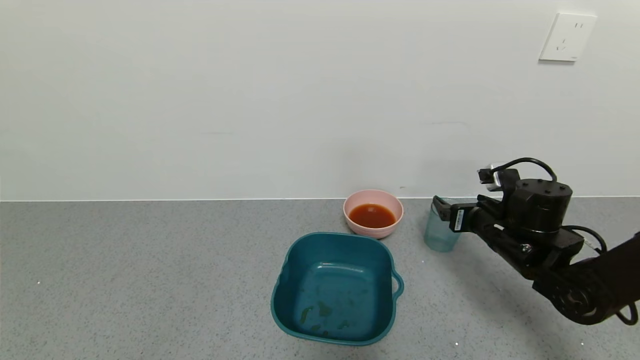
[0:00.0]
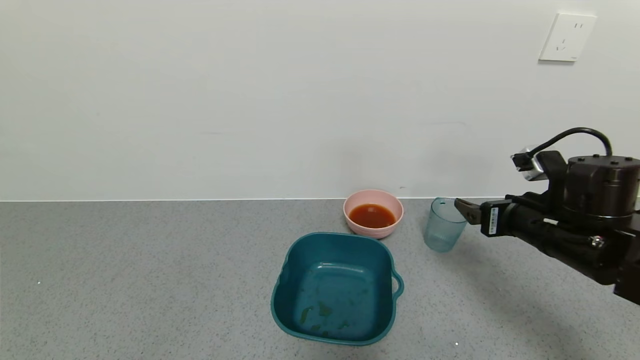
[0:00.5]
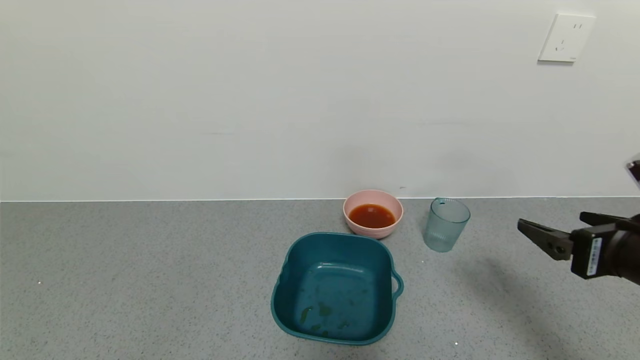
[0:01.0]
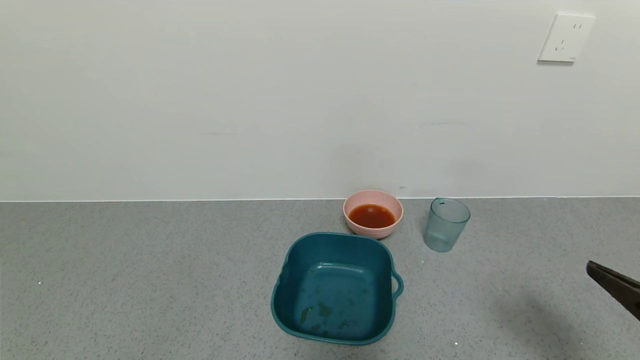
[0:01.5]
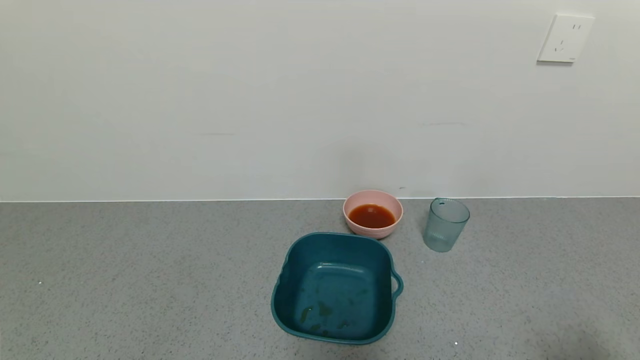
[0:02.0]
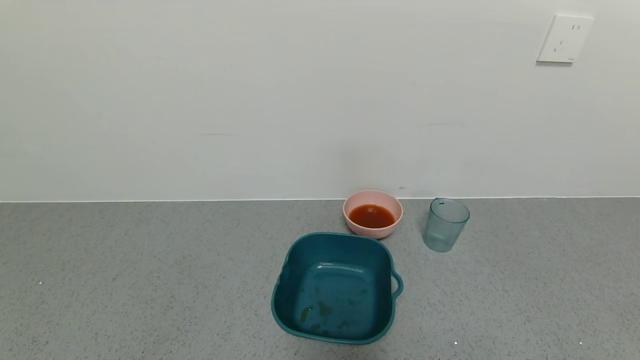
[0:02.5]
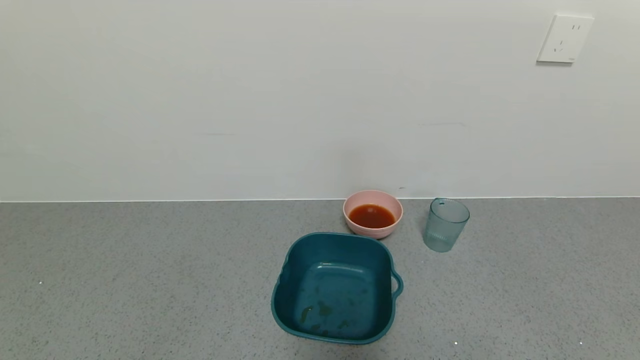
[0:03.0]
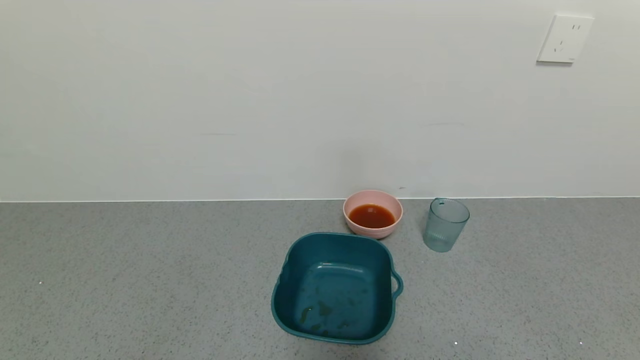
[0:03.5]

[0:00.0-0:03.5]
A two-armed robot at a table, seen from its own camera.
Task of the whole recording: use a gripper to pick up the cup and pour the liquid into a bowl or tray.
0:00.0 to 0:02.0: The right gripper heads backward, covering some 30 cm.

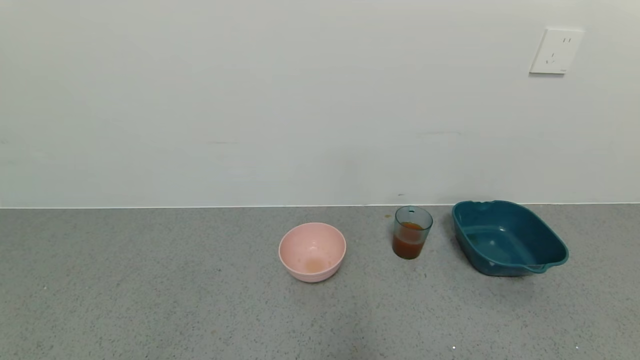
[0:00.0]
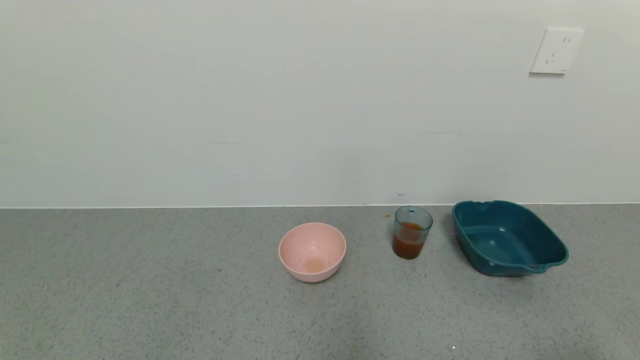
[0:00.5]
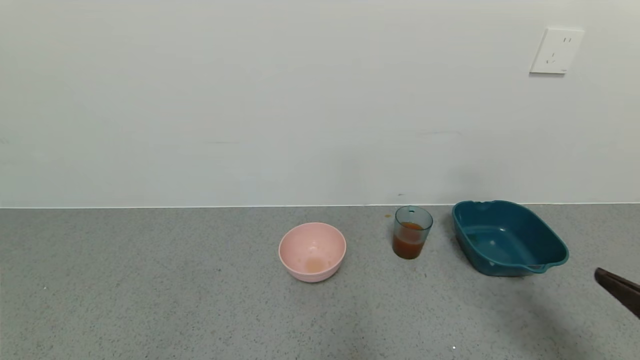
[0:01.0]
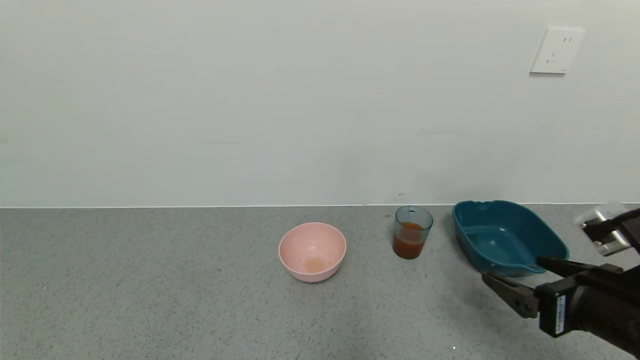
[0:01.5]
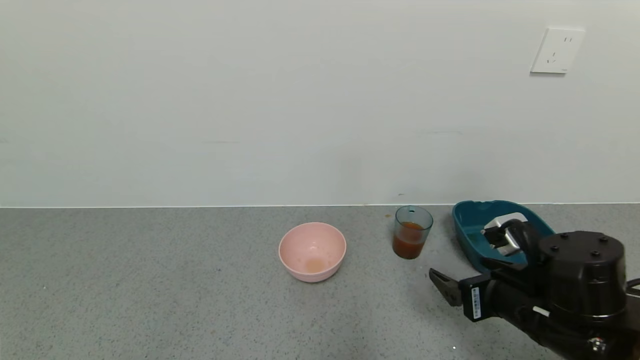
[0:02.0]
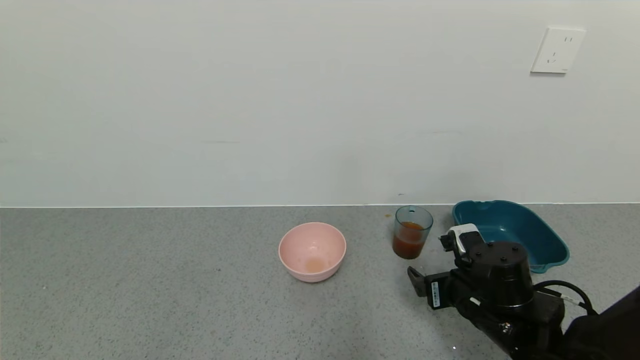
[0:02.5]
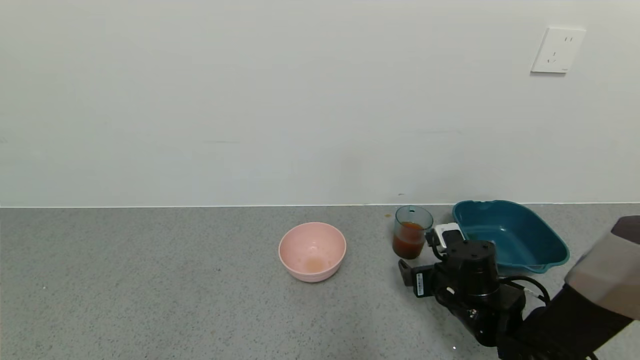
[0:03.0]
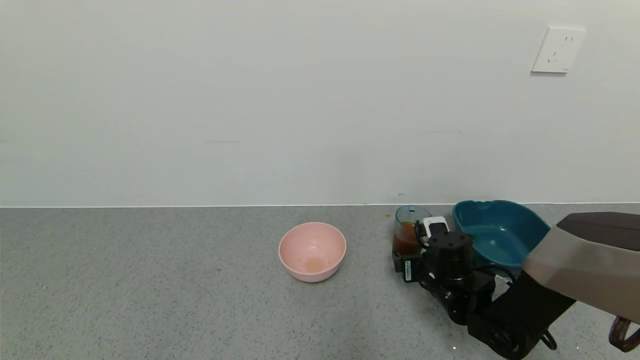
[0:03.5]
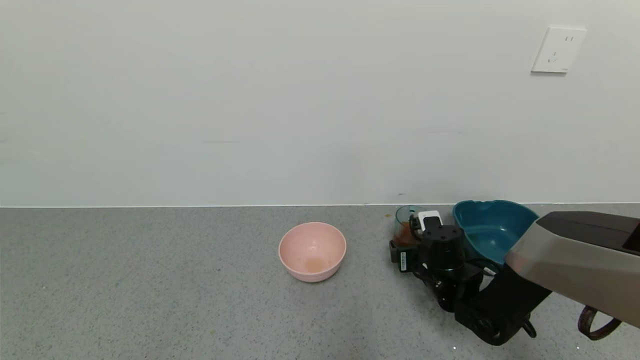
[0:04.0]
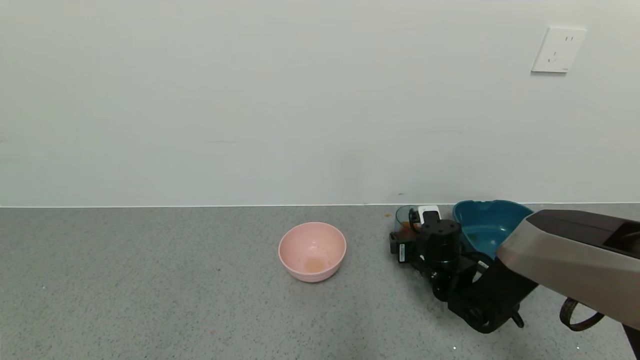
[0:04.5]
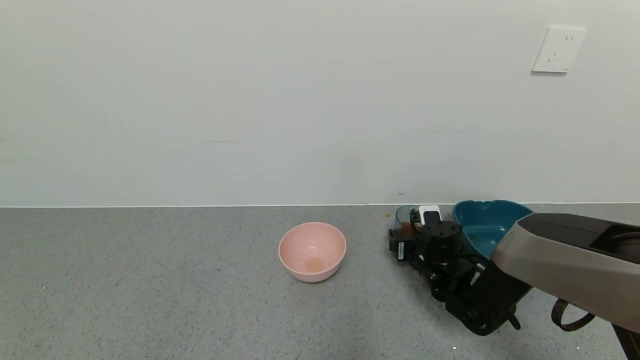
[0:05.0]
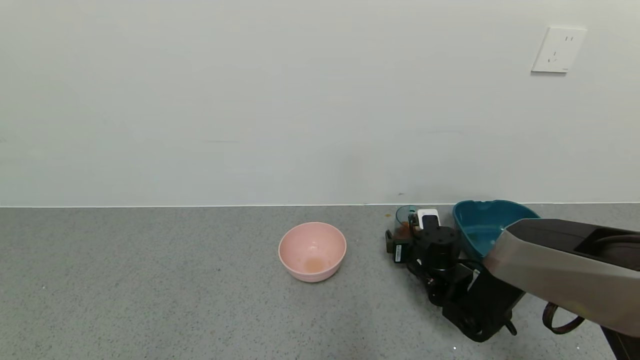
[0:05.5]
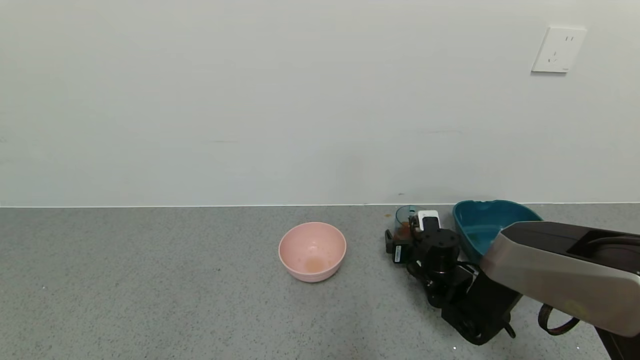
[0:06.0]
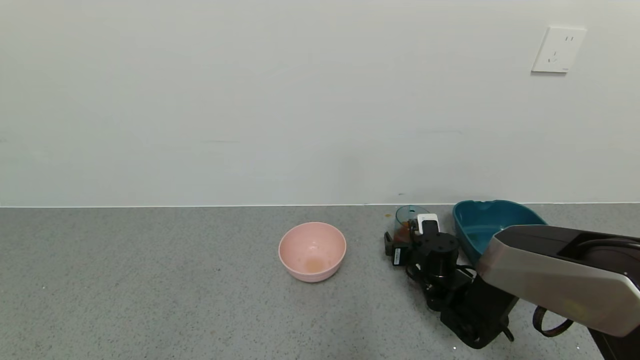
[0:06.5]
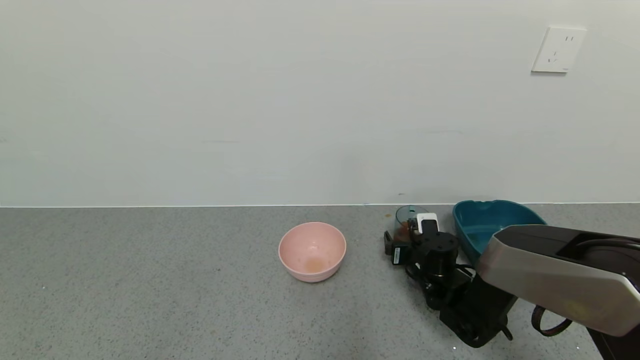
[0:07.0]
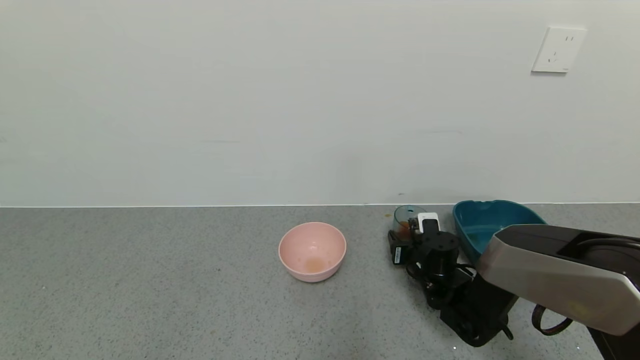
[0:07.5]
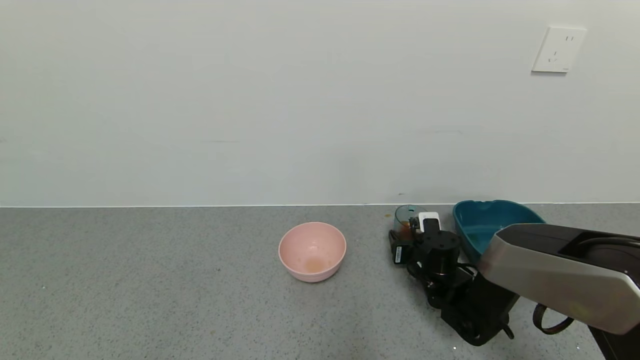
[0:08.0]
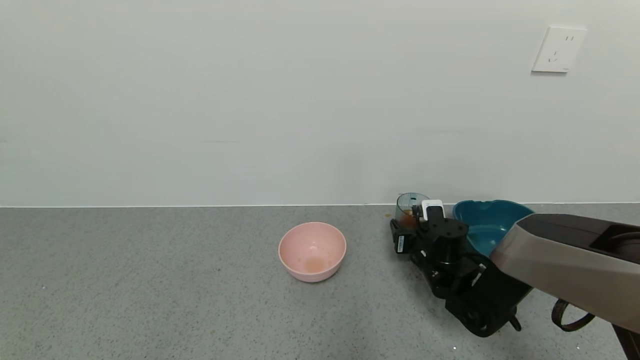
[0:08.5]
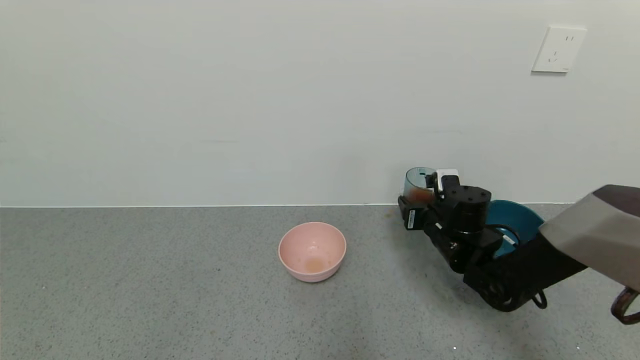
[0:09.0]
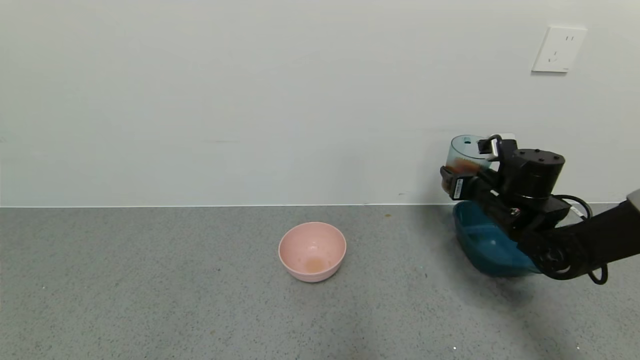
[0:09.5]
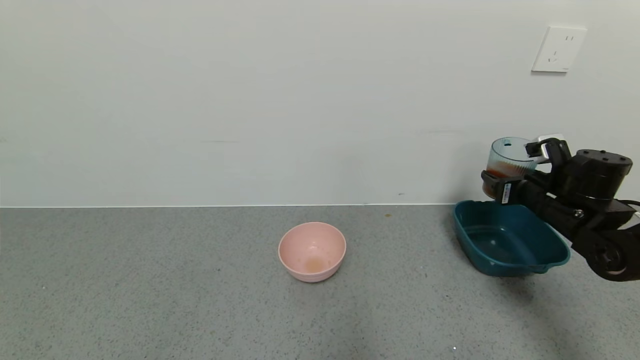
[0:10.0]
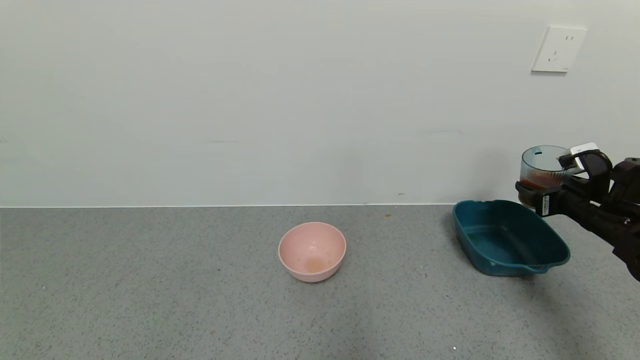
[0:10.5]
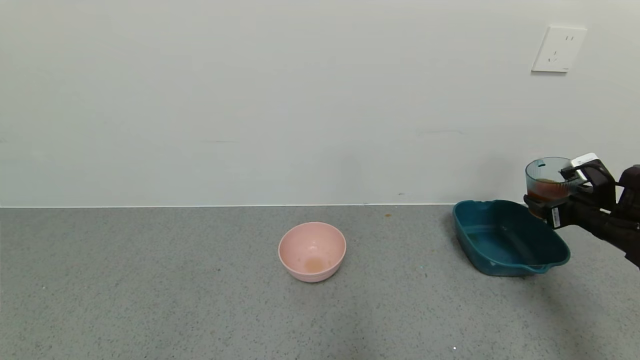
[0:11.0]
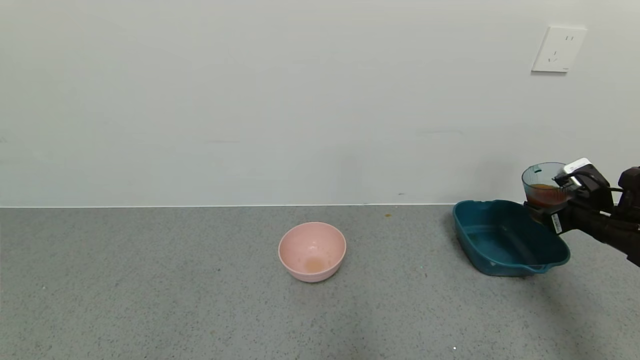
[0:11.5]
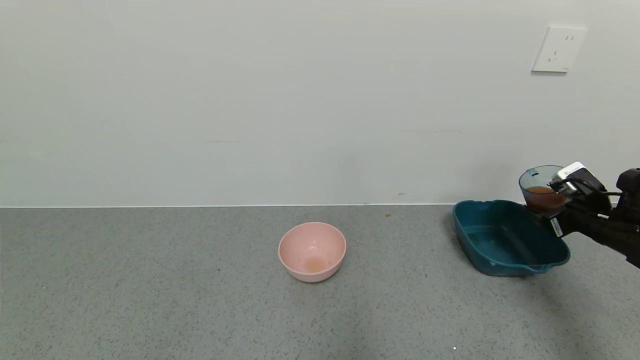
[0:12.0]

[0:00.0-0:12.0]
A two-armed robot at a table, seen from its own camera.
Task of the whole recording: use a gripper to pick up the cup and pour the liquid into a bowl or tray.
Step, 0:00.0 to 0:08.0: Grasp the glass of black tea with the right gripper.
0:00.0 to 0:02.0: The right gripper shifts roughly 25 cm forward and to the left.
0:02.0 to 0:04.0: The right gripper moves forward and downward, about 20 cm.
0:04.0 to 0:06.0: The grippers move only a little.
0:06.0 to 0:08.0: The right gripper closes up.
0:08.0 to 0:10.0: The right gripper shifts some 25 cm to the right and upward.
0:10.0 to 0:12.0: The right gripper goes roughly 10 cm to the right.

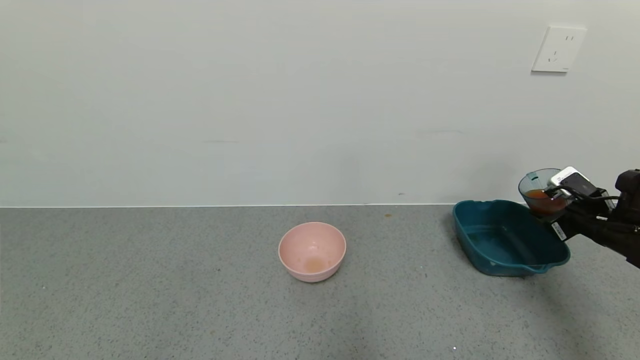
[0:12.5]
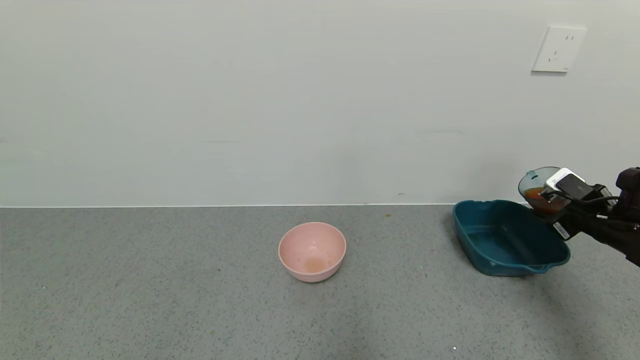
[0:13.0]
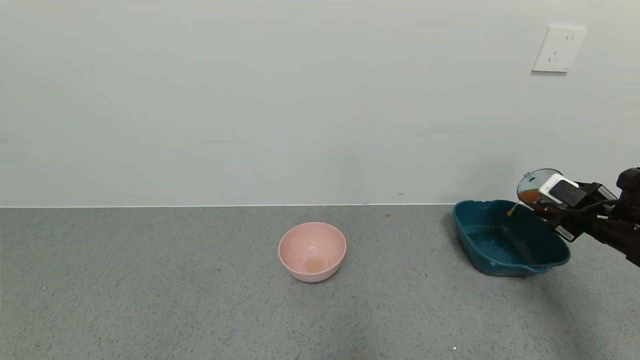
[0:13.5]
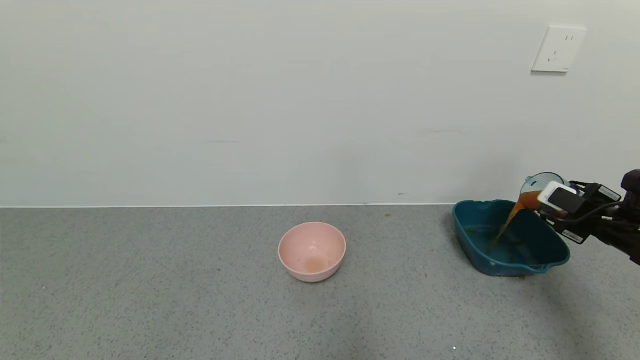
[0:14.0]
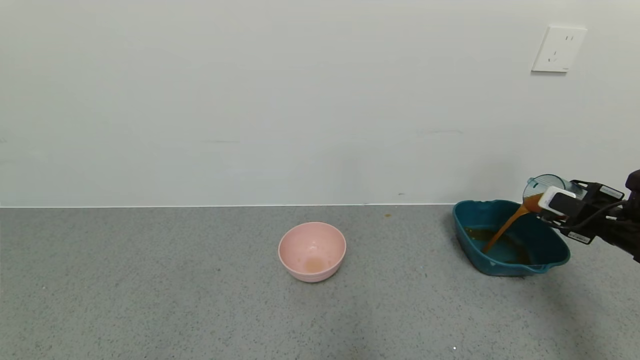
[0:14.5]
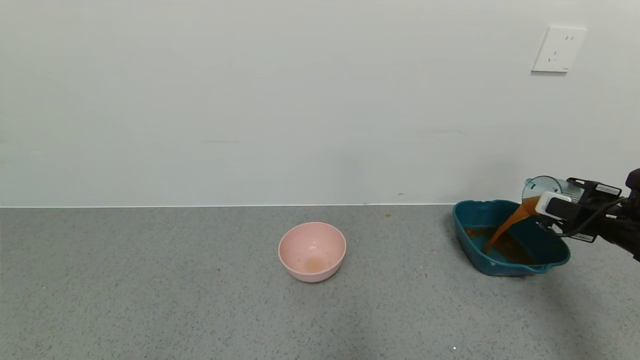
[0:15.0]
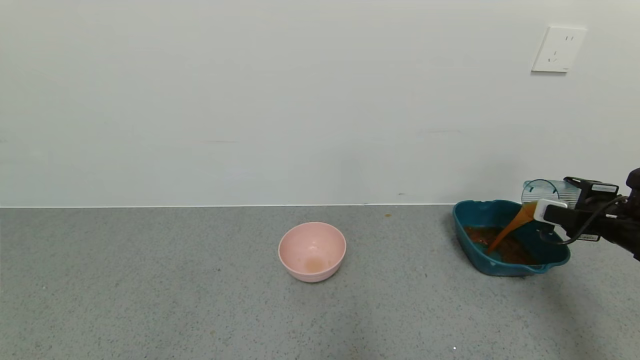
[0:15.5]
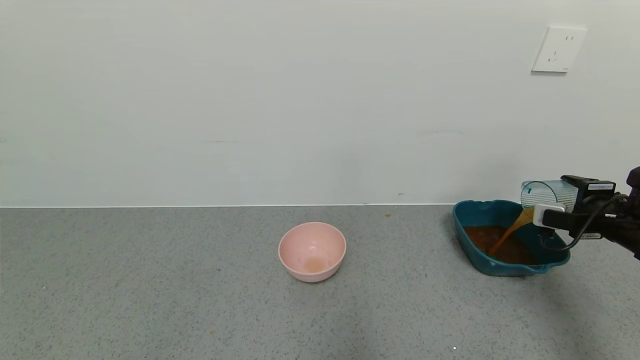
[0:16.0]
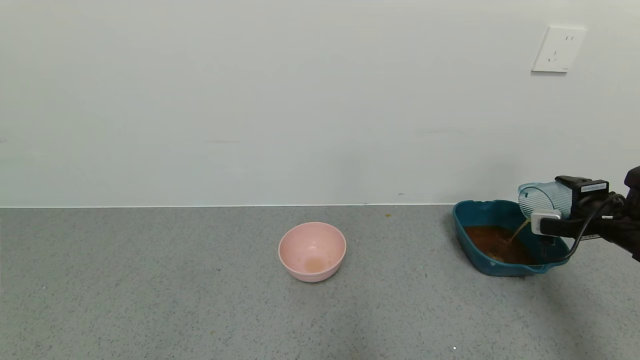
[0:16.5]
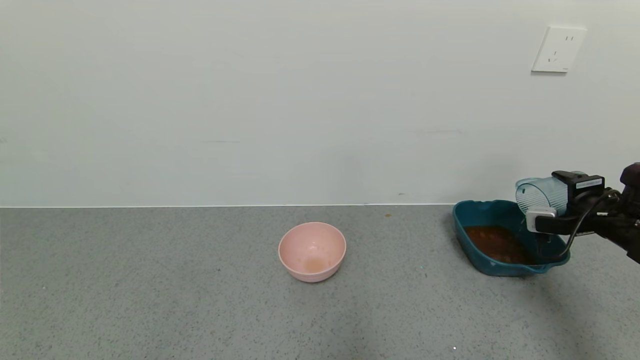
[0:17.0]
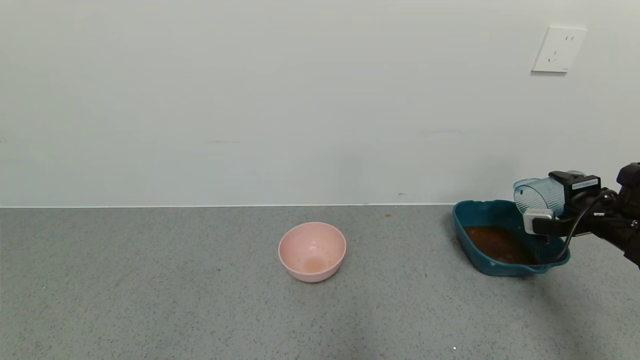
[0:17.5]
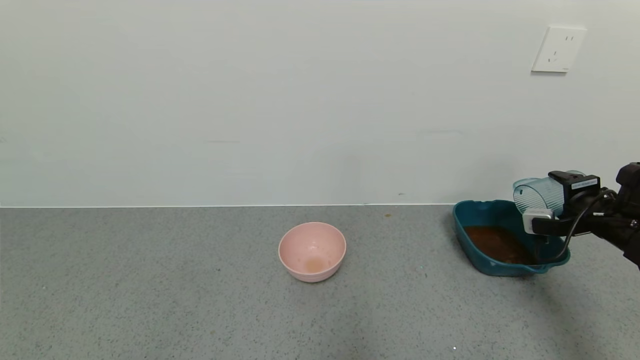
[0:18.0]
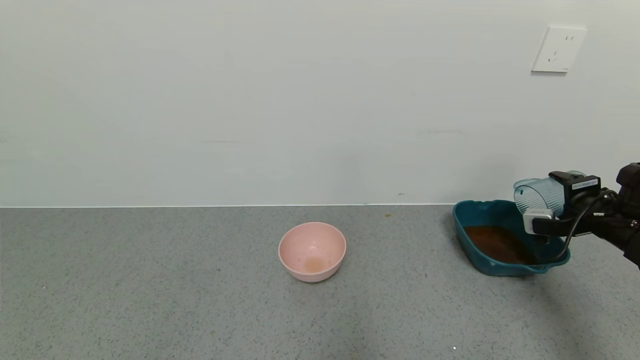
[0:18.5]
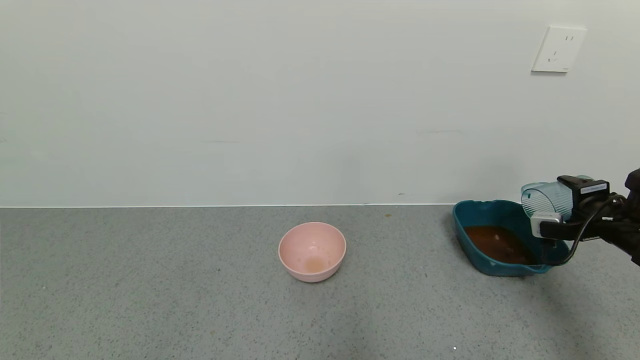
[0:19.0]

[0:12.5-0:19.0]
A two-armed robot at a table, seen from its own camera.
Task of the whole recording: use a gripper to pick up the cup and pour the liquid into a bowl or tray.
Step, 0:12.5 to 0:18.5: Pour the black tea into the green bowl with the right gripper.
0:17.0 to 0:19.0: The two grippers keep their place.
